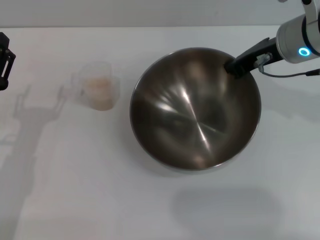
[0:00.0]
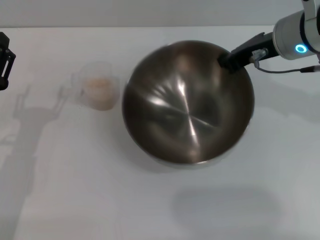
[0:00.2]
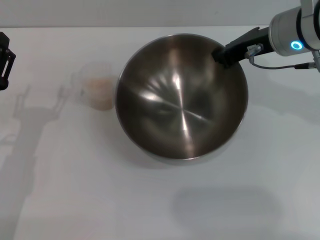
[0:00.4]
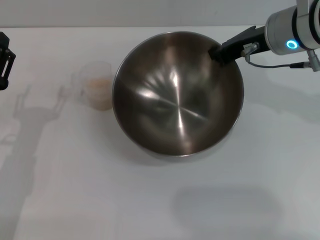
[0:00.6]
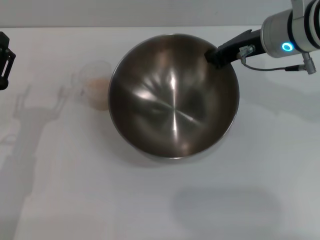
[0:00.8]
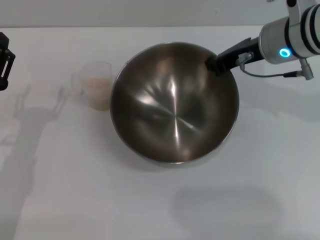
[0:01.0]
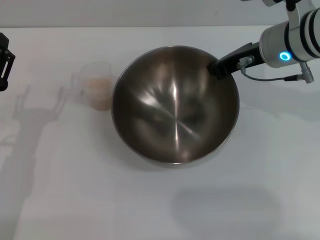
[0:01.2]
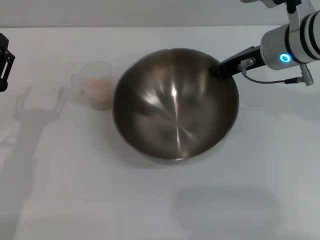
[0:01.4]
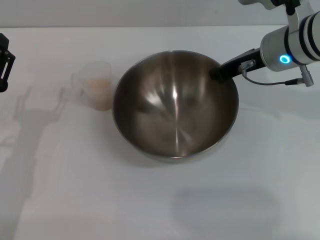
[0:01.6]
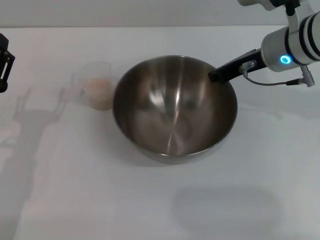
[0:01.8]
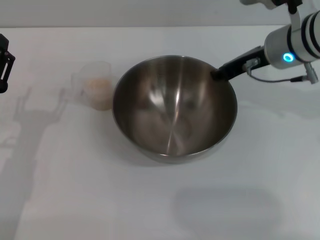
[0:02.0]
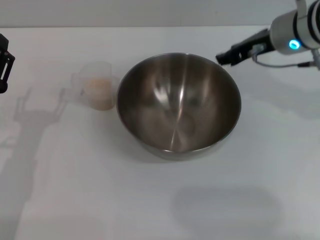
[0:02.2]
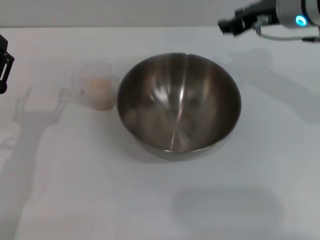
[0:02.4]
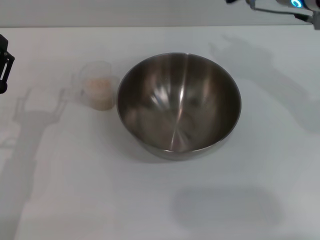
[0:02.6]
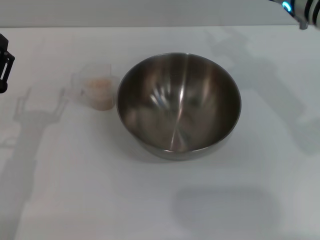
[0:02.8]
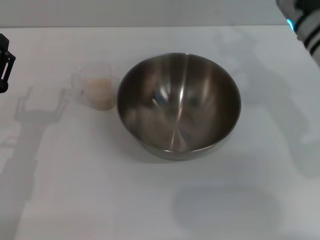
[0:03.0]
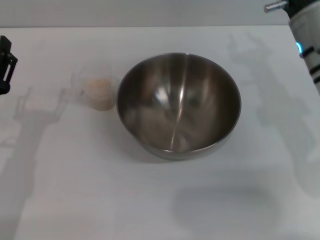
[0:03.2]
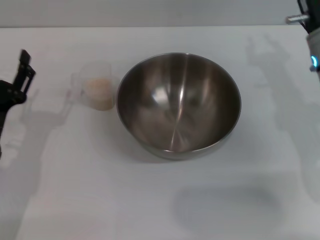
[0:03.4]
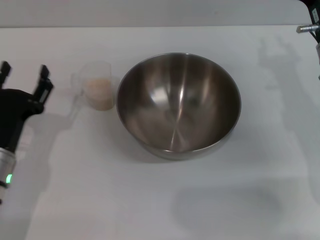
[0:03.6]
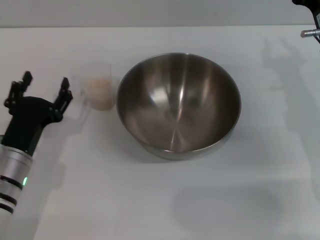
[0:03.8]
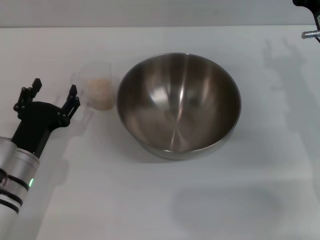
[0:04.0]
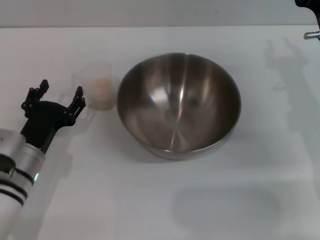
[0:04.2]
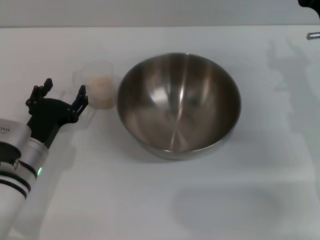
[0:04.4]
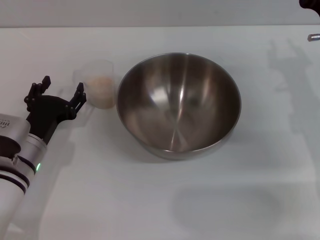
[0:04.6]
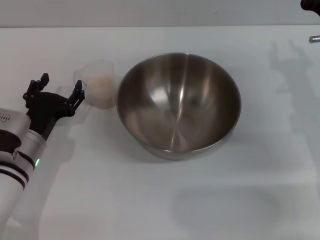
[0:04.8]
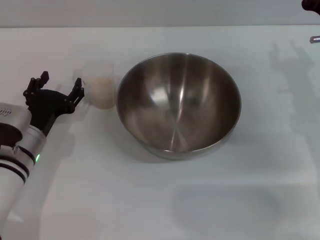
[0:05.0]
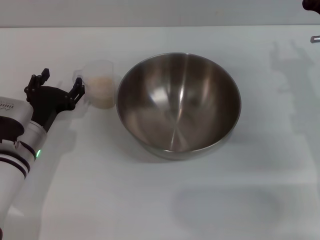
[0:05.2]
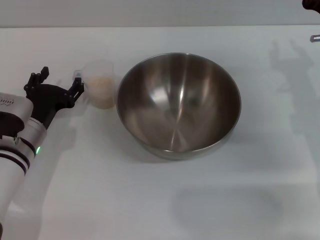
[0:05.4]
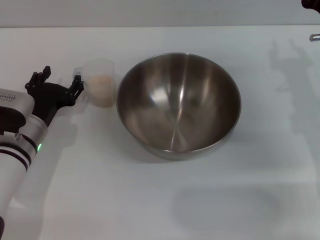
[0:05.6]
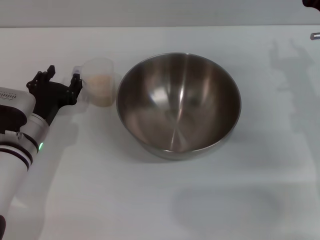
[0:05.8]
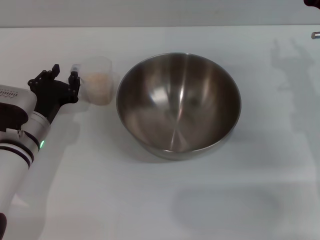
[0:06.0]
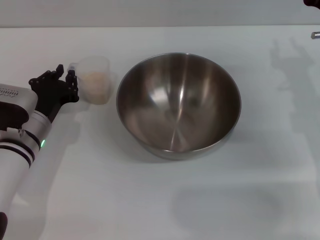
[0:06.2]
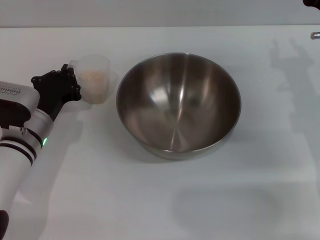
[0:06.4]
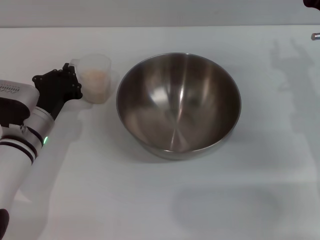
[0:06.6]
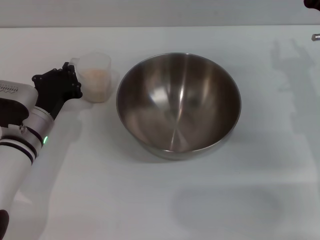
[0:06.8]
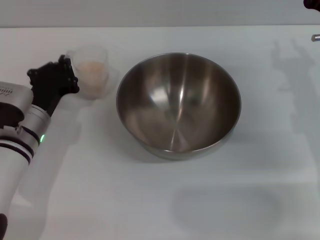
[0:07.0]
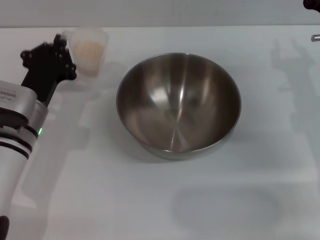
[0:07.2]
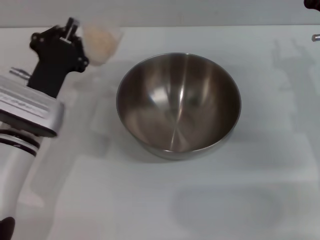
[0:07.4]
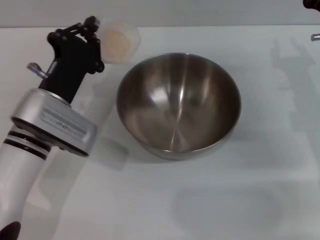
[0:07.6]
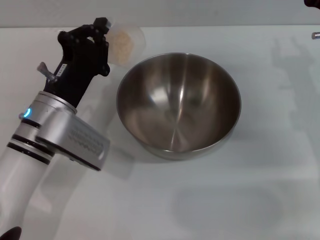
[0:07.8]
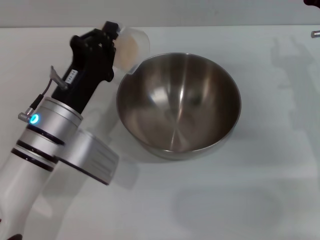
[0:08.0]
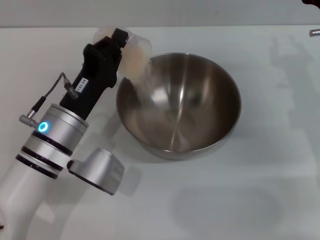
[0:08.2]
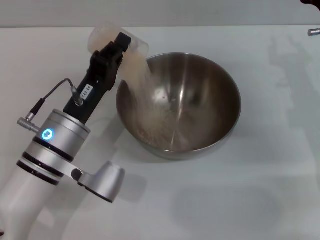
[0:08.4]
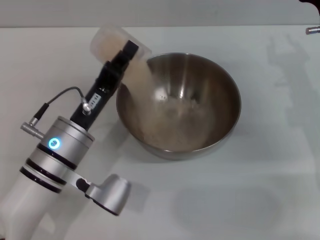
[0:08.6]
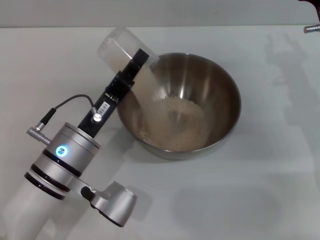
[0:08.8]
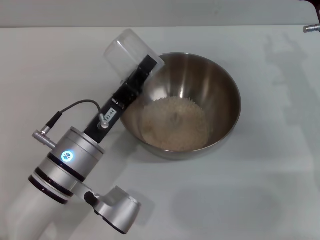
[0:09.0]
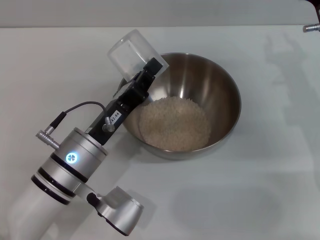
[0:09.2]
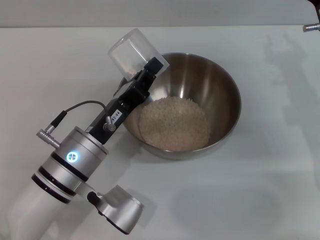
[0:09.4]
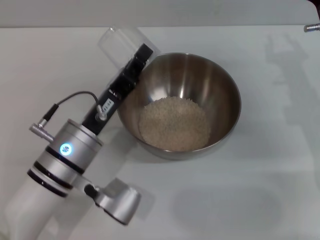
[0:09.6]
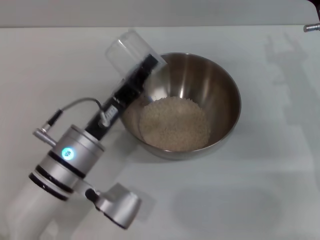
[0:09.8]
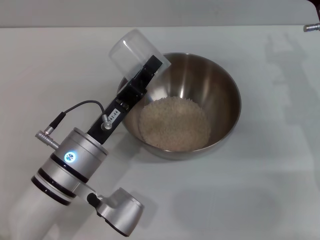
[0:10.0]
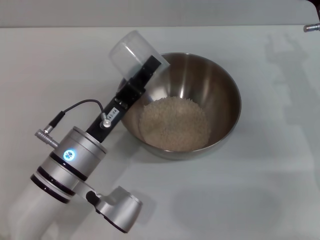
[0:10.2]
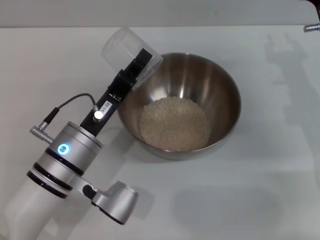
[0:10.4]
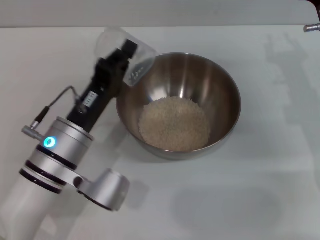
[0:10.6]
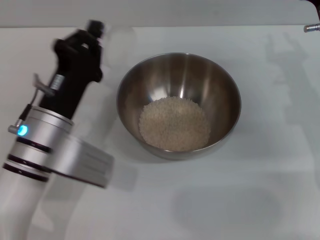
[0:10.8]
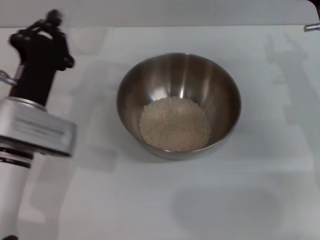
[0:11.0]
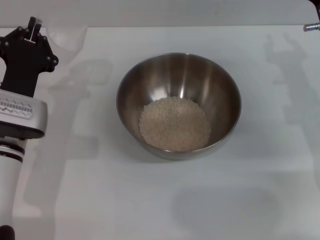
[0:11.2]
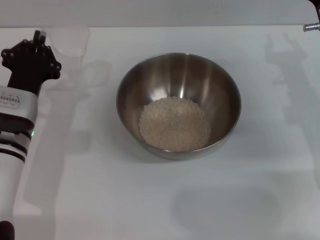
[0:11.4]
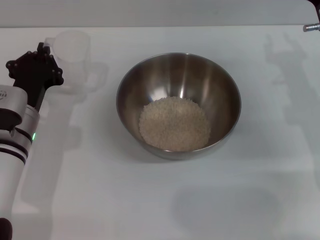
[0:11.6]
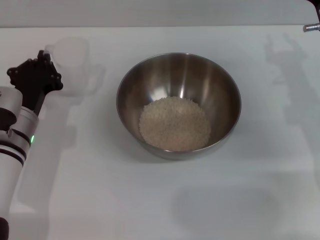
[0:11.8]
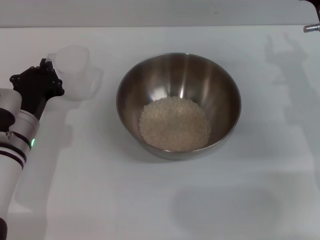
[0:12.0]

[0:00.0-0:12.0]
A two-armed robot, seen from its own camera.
Task of the whole recording: Place the bowl in the middle of the table with one hand and pour the rice from the grain cup into it with the other hand.
Step, 0:00.4 to 0:02.0: Place the bowl in the center of view with the right gripper.
Step, 0:02.4 to 0:07.2: Pick up the cup with rice in it with the left gripper.
Step, 0:07.6 to 0:08.8: Pour the rice from the cup into the bowl with the left gripper.
0:00.0 to 0:01.6: The grippers make only small movements.
0:01.6 to 0:03.0: The right gripper opens.
0:03.0 to 0:04.4: The left gripper ends up some 5 cm from where it was, while the right gripper heads downward and to the right, covering some 10 cm.
0:04.4 to 0:06.0: There are only small adjustments of the grippers.
0:06.0 to 0:07.6: The left gripper moves some 5 cm, and closes.
0:07.6 to 0:09.0: The left gripper travels backward by about 5 cm.
0:09.0 to 0:10.4: The grippers stay close to where they were, moving slightly.
0:10.4 to 0:12.0: The left gripper moves to the left and forward, approximately 10 cm.

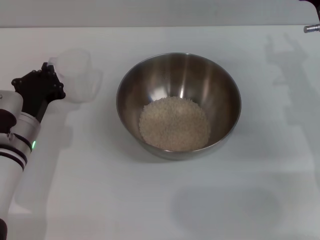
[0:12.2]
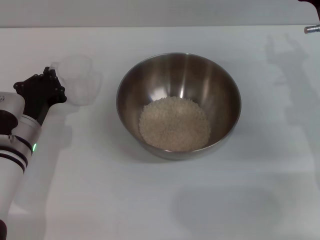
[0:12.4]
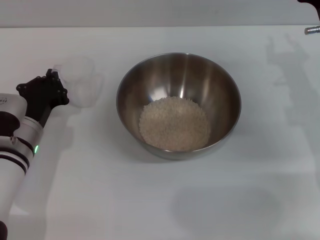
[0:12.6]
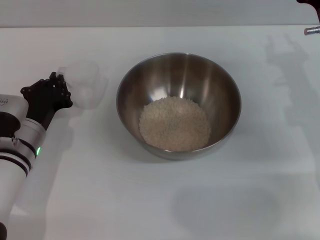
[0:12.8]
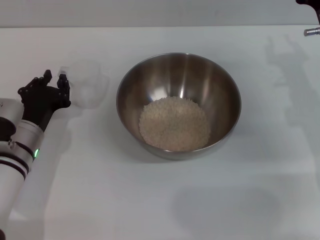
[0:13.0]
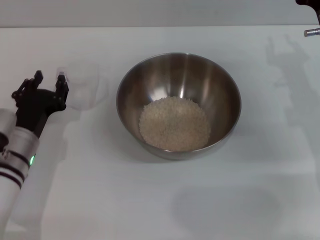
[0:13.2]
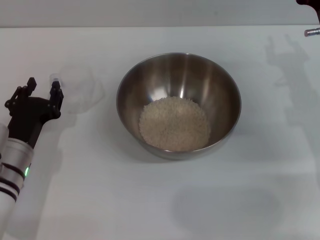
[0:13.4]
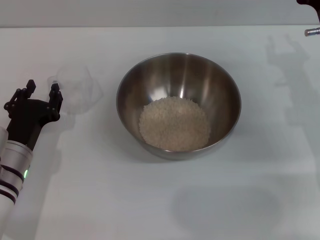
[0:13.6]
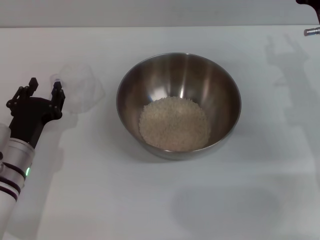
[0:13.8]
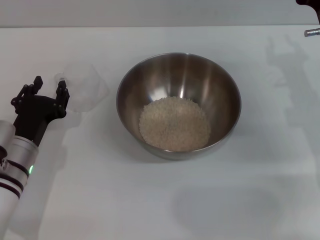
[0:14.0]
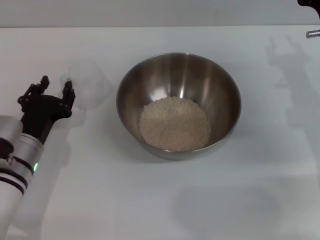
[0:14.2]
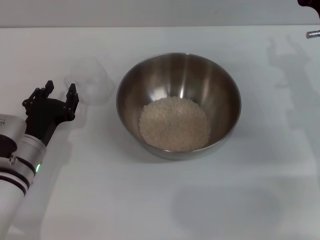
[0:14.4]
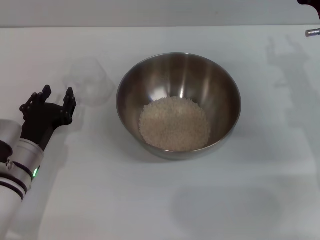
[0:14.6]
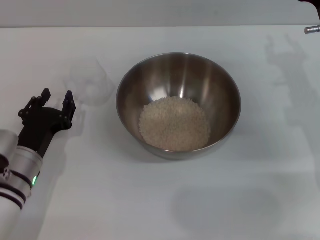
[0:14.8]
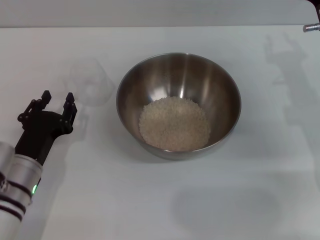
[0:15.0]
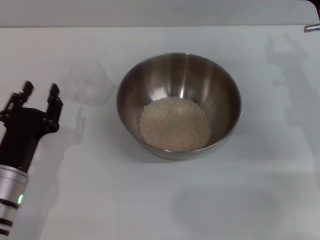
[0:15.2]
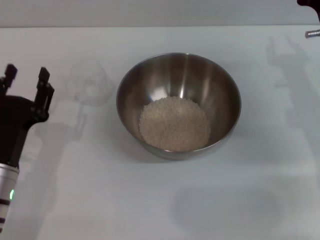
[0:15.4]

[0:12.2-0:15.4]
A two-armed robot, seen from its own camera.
Task of the whole recording: Place the bowl in the middle of the table with one hand and pour the rice from the grain cup into it with the other hand.
0:12.2 to 0:13.8: The left gripper opens its fingers.
0:13.8 to 0:15.4: The left gripper goes approximately 5 cm backward.
